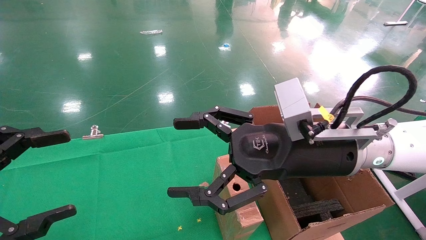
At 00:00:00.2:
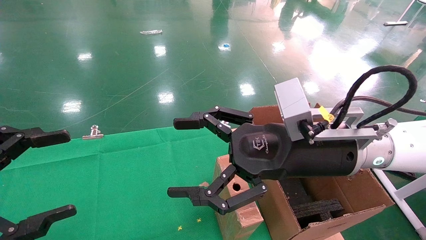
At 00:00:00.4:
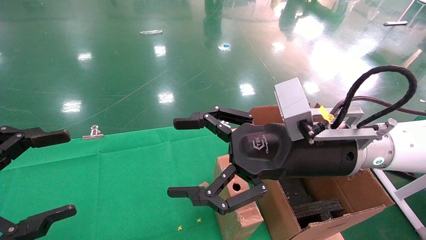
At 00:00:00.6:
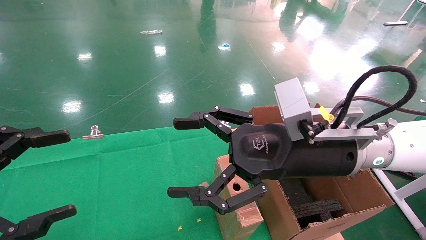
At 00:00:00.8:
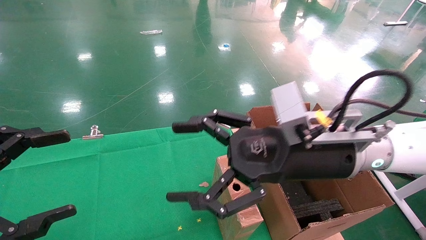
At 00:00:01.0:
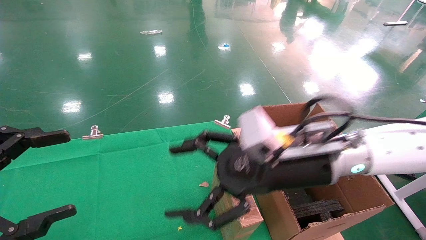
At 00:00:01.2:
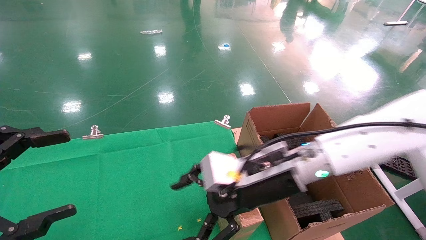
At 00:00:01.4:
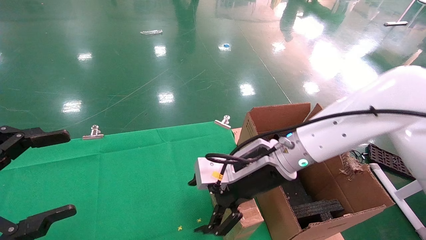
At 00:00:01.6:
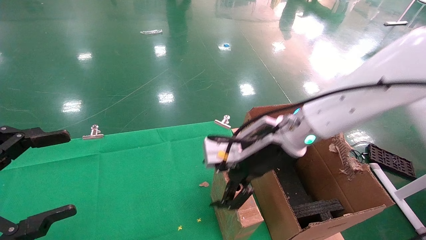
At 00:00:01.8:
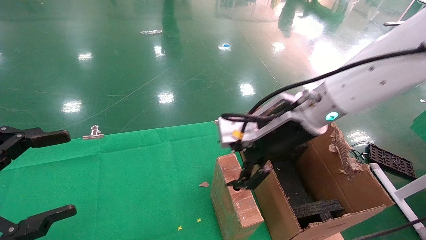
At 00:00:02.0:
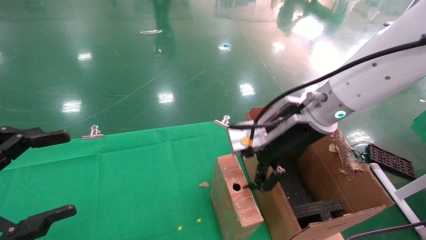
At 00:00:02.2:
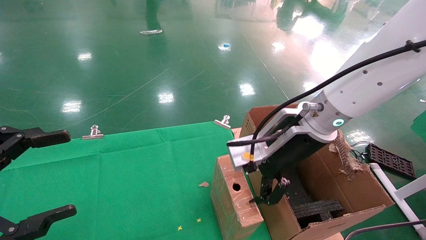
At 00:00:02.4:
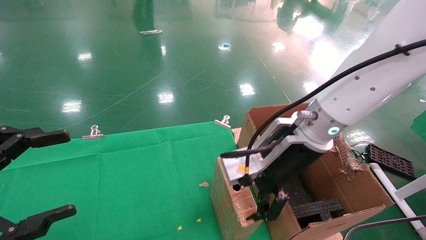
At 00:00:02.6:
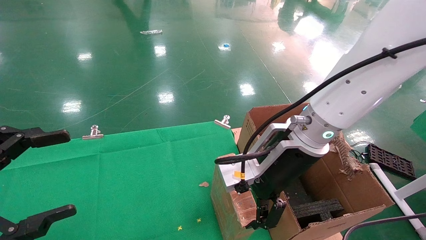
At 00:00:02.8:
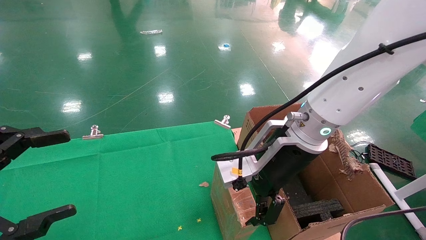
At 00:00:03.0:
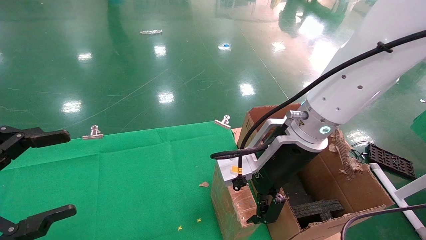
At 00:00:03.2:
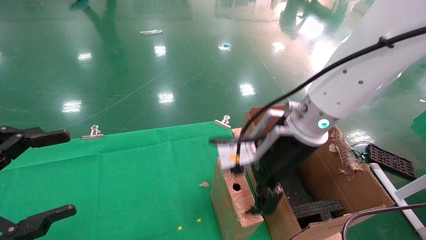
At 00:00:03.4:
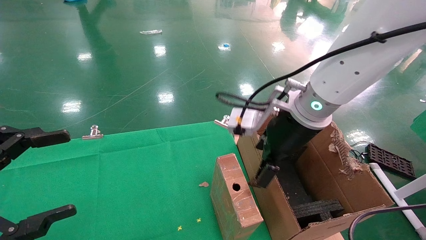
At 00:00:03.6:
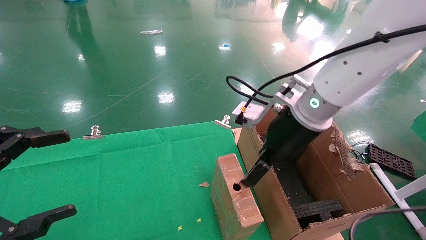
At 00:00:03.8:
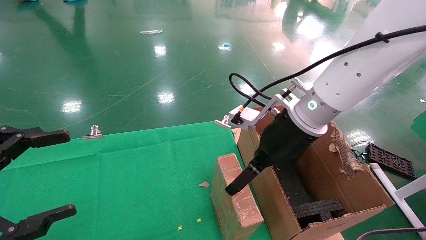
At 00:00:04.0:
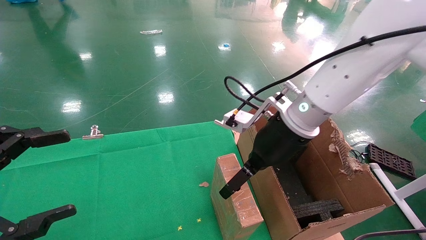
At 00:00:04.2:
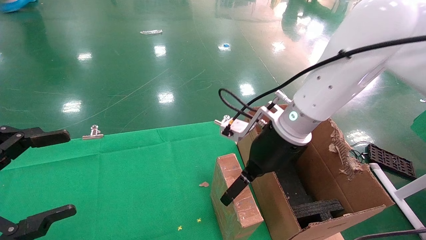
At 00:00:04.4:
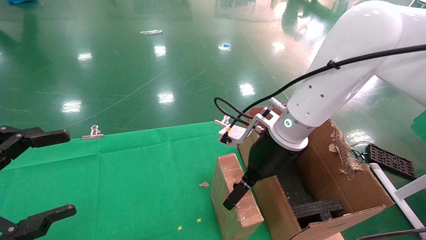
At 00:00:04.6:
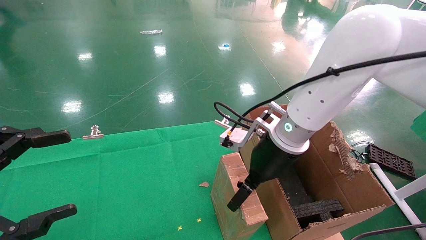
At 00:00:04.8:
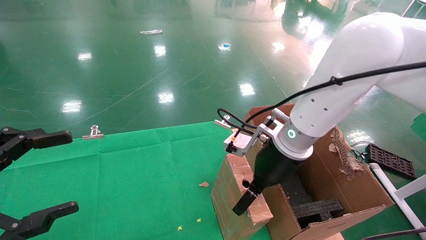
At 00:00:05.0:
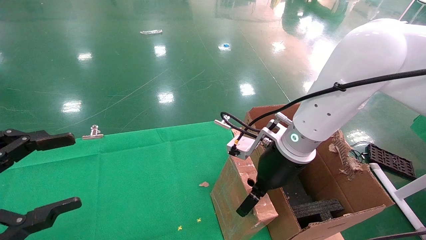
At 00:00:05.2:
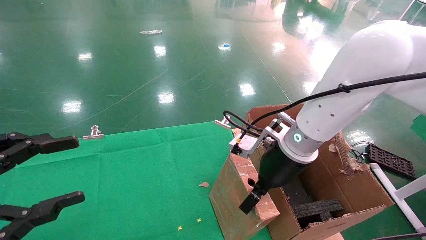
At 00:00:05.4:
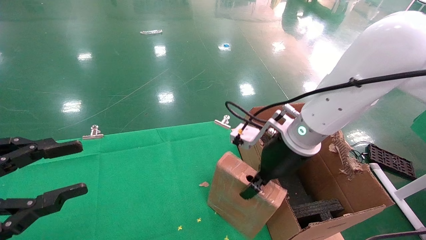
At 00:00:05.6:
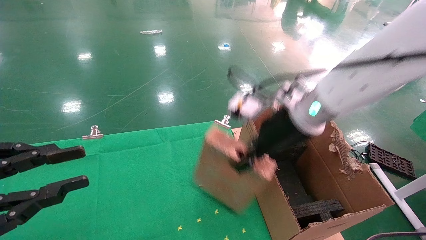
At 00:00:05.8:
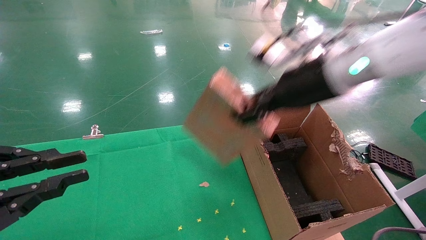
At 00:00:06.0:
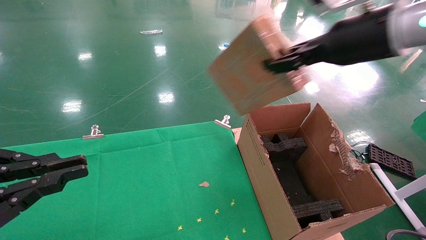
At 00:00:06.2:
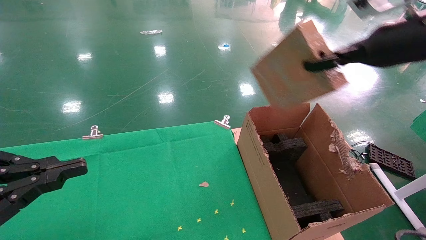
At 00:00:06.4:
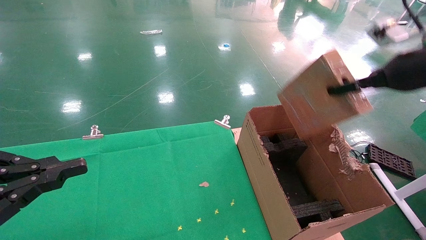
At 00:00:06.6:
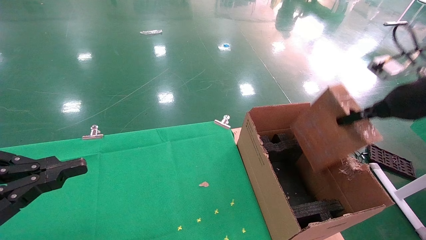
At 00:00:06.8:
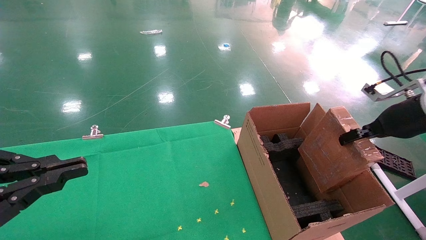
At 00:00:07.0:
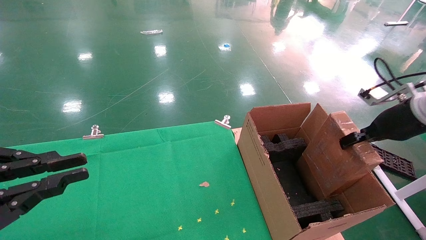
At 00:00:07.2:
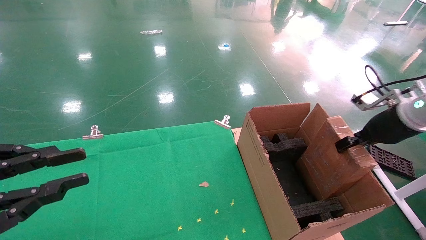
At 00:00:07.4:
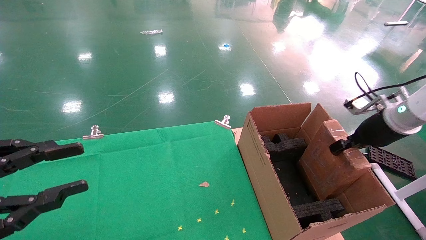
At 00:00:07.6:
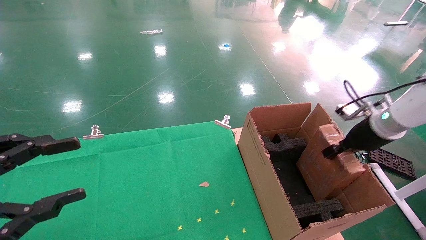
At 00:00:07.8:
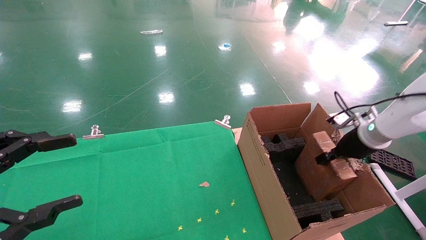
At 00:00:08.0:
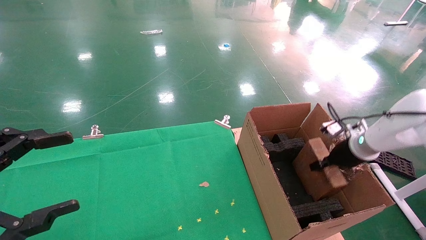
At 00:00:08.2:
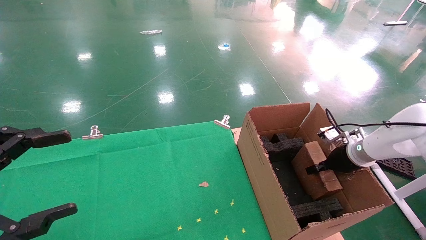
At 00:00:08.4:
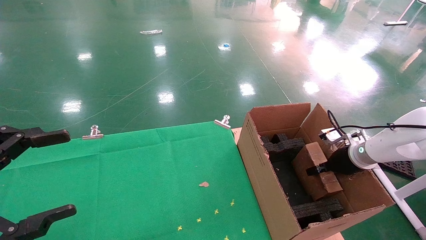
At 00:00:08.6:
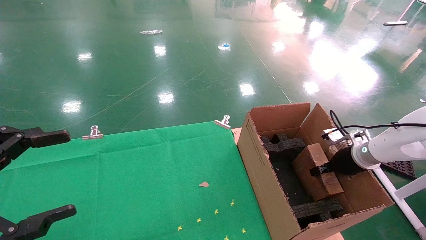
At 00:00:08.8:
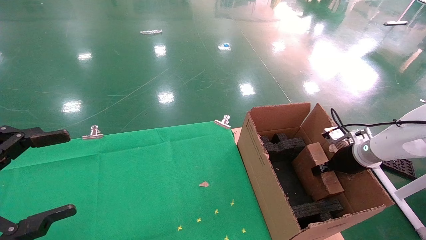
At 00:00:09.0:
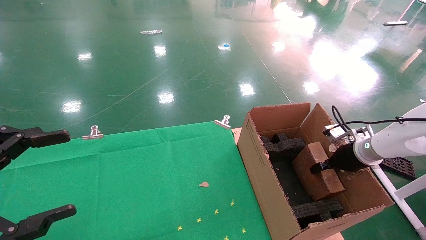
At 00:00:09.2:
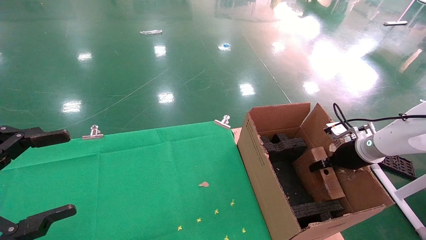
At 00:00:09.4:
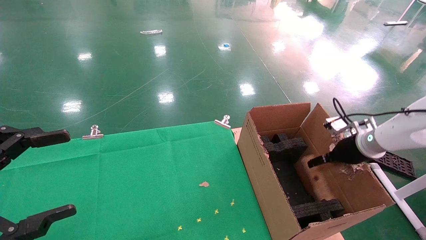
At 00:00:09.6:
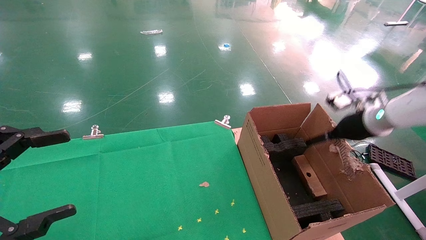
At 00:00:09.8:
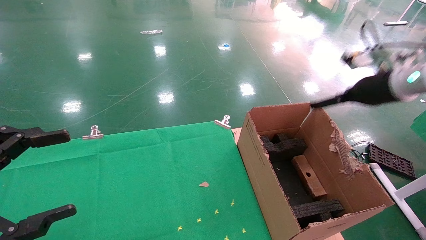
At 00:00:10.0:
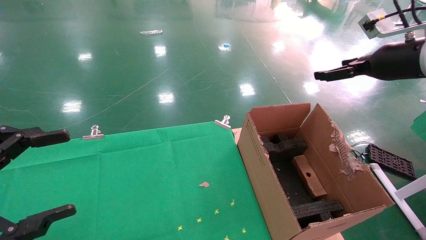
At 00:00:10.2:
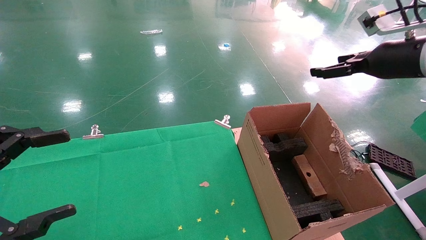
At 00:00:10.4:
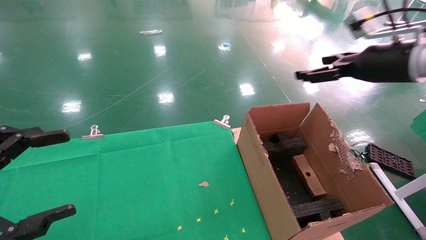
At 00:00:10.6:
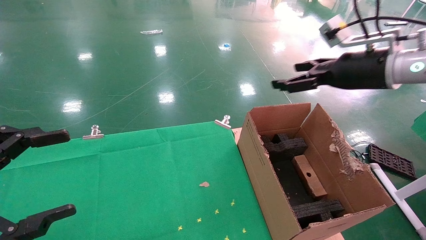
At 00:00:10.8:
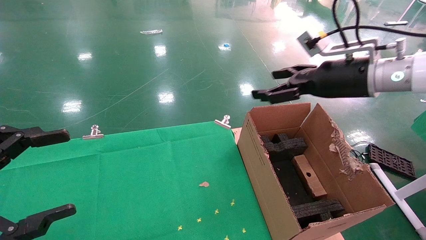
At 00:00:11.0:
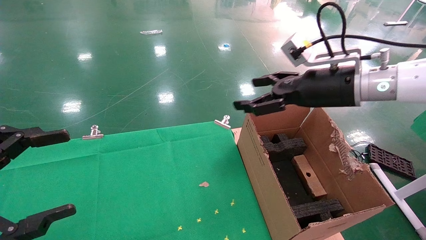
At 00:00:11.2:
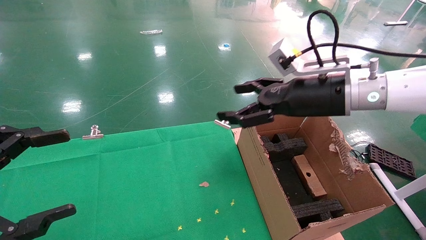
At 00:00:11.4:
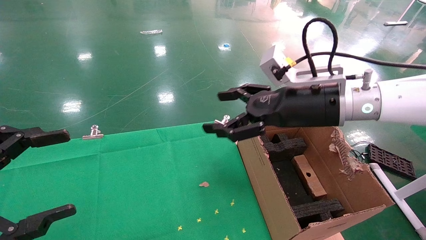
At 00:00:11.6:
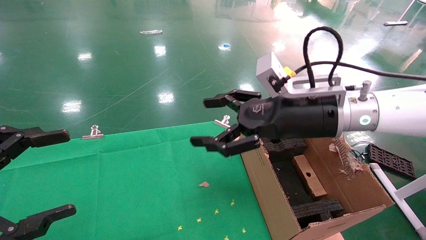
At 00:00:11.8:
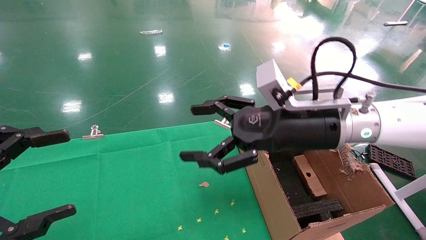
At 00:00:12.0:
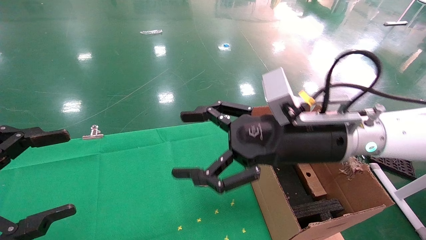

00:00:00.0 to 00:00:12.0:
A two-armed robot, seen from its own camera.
Task of the whole recording: using a robotic arm to pick up a cardboard box and palace it the carton.
Step, 00:00:01.0 to 00:00:05.4: Pick up the mouse and the power cord paper box.
Step, 00:00:05.6 to 00:00:09.6: Place the mouse and the power cord paper box into the container.
00:00:00.0 to 00:00:01.6: The right gripper goes about 5 cm forward.
00:00:01.6 to 00:00:03.0: There are only small adjustments of the grippers.
00:00:04.4 to 00:00:06.0: The right gripper shifts some 20 cm upward and to the right, and closes its fingers. The left gripper closes up.
00:00:06.0 to 00:00:07.6: The right gripper shifts about 25 cm downward and to the right.
00:00:07.6 to 00:00:09.0: The left gripper opens its fingers. Meanwhile the right gripper moves downward, some 10 cm.
00:00:09.0 to 00:00:10.4: The right gripper shifts about 25 cm upward, and opens its fingers.
00:00:10.4 to 00:00:12.0: The right gripper moves to the left and downward, some 20 cm.

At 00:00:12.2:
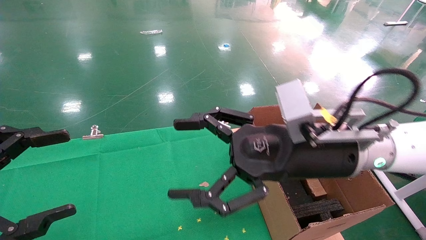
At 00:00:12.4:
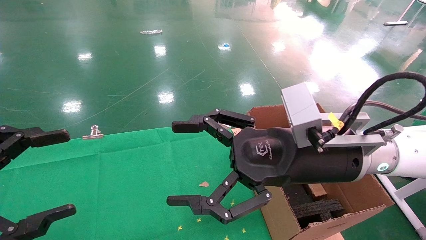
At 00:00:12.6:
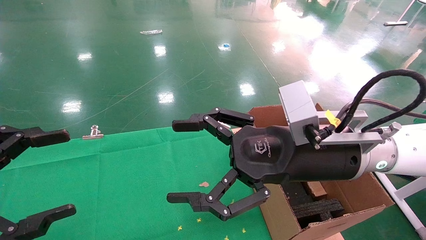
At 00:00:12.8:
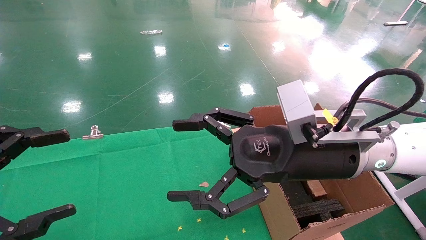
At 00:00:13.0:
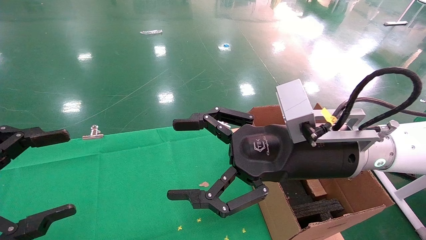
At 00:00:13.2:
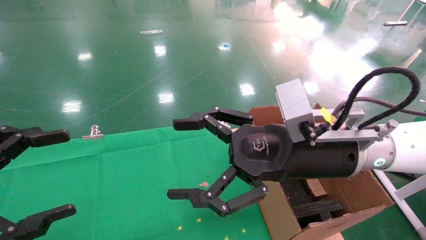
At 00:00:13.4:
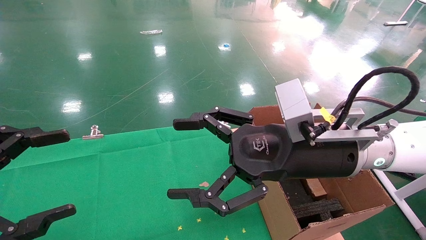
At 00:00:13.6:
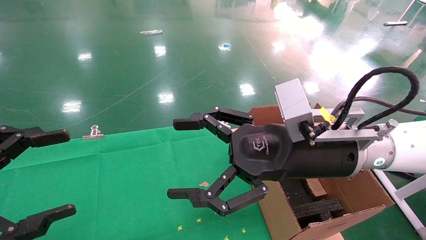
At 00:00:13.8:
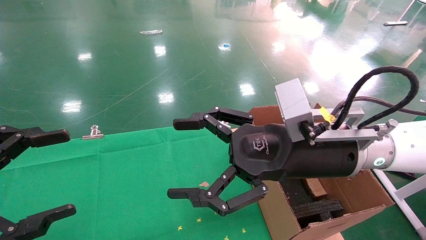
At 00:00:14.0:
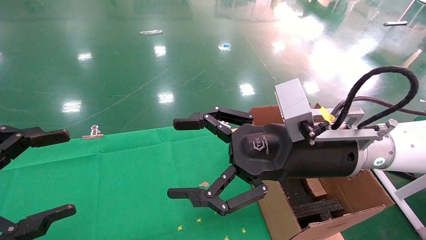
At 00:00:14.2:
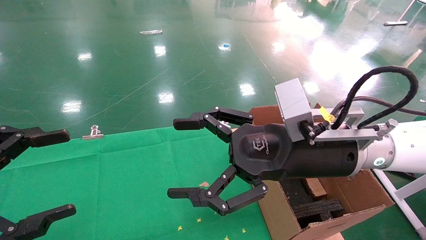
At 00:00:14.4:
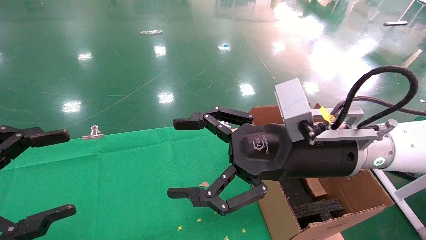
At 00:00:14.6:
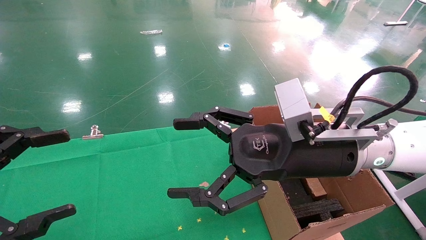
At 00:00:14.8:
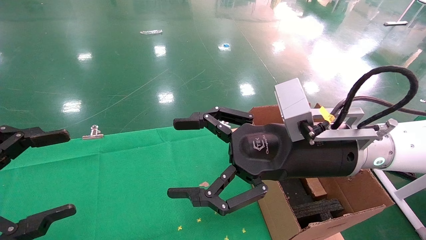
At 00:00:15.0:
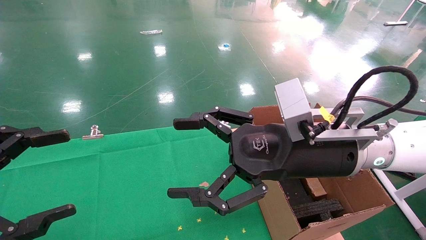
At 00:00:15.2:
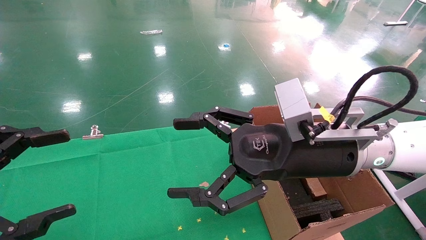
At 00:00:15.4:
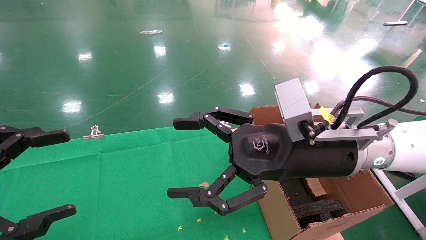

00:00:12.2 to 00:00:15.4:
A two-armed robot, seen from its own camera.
Task of the whole recording: using a robotic arm to pick up a cardboard box and palace it the carton.
00:00:12.2 to 00:00:15.4: Both grippers stay about where they are.
